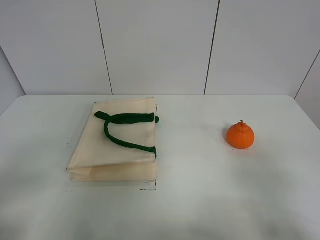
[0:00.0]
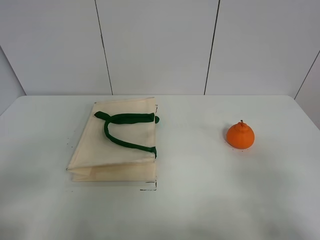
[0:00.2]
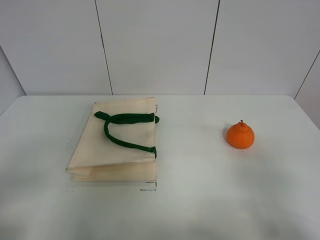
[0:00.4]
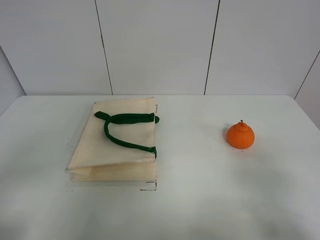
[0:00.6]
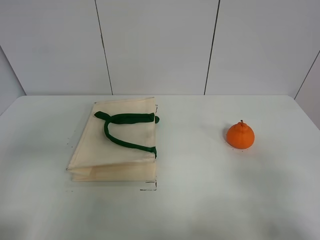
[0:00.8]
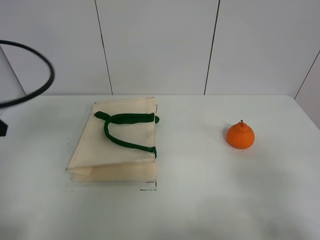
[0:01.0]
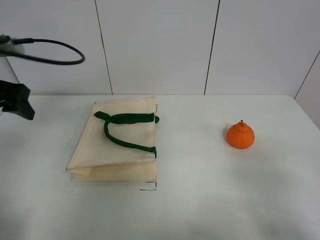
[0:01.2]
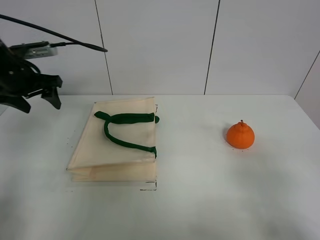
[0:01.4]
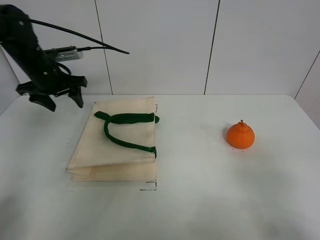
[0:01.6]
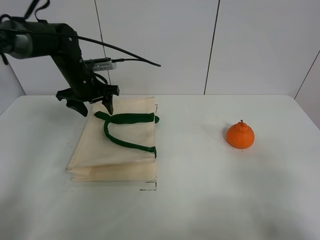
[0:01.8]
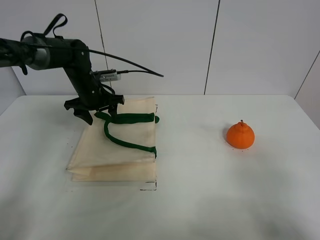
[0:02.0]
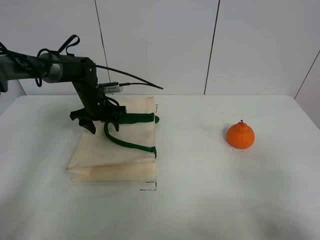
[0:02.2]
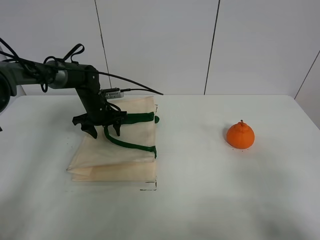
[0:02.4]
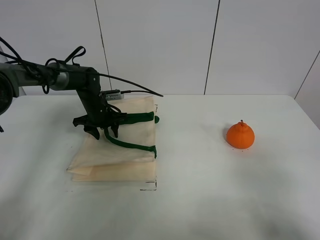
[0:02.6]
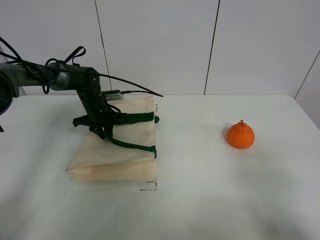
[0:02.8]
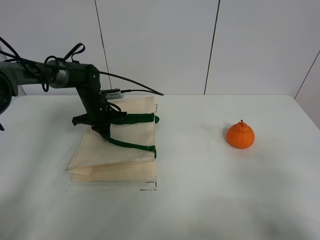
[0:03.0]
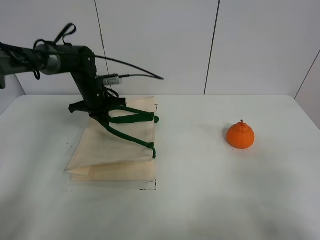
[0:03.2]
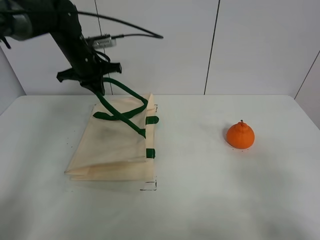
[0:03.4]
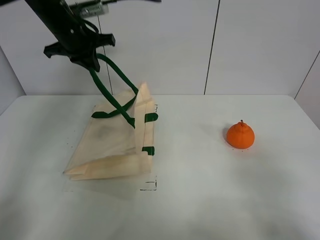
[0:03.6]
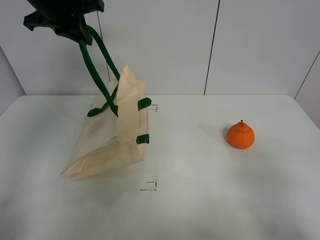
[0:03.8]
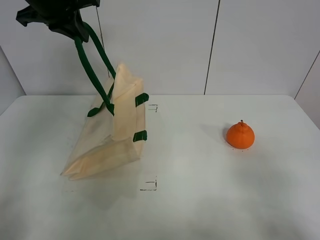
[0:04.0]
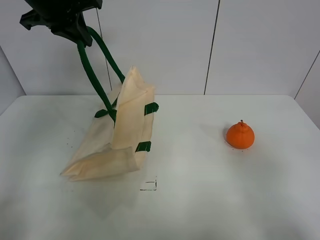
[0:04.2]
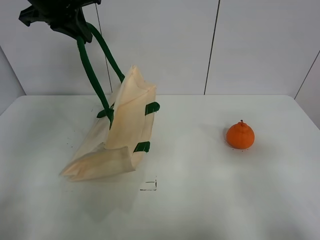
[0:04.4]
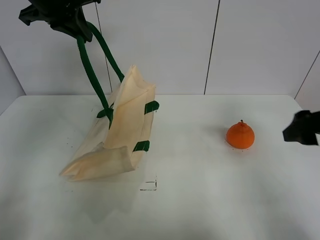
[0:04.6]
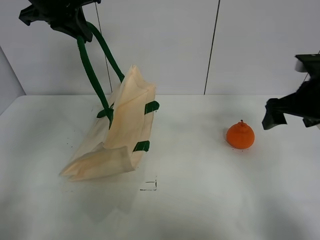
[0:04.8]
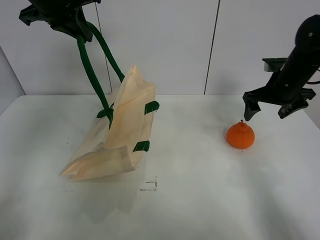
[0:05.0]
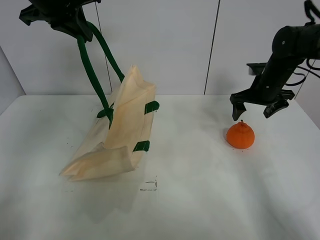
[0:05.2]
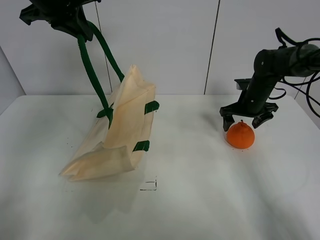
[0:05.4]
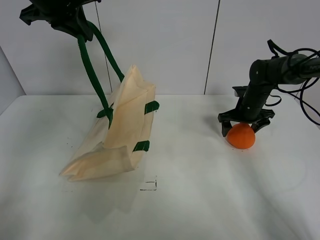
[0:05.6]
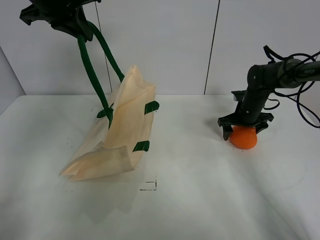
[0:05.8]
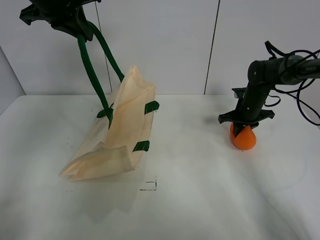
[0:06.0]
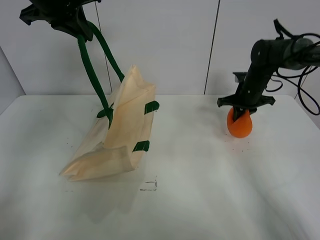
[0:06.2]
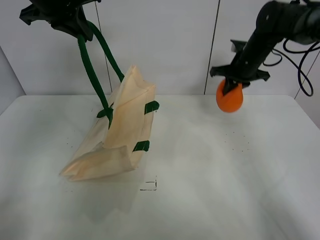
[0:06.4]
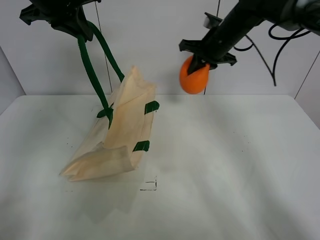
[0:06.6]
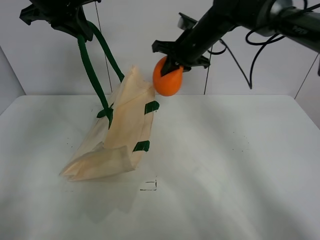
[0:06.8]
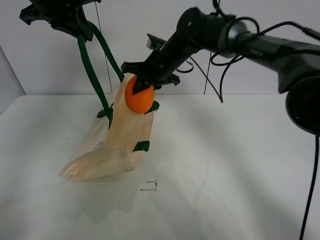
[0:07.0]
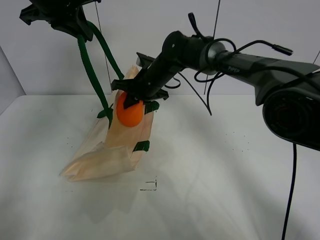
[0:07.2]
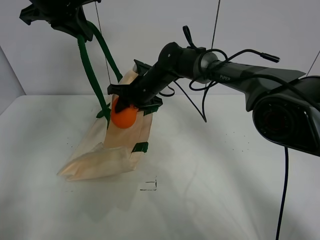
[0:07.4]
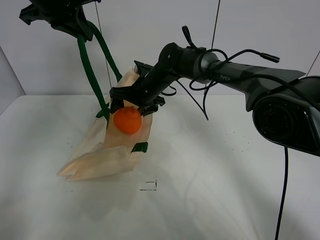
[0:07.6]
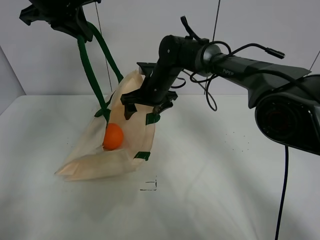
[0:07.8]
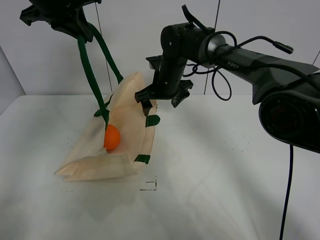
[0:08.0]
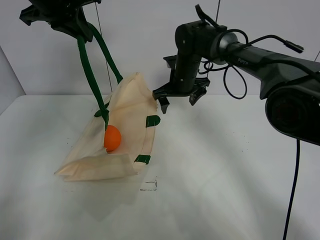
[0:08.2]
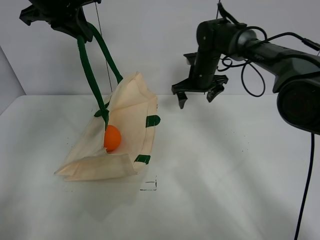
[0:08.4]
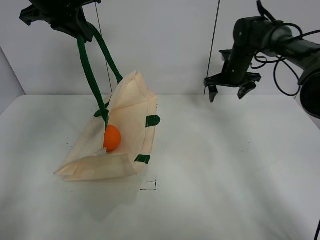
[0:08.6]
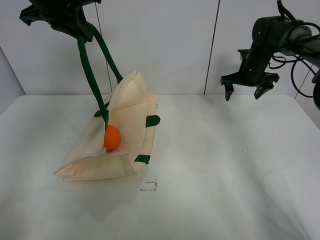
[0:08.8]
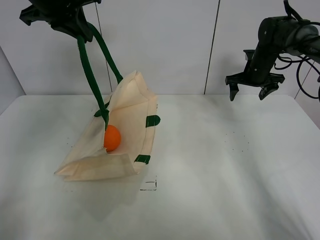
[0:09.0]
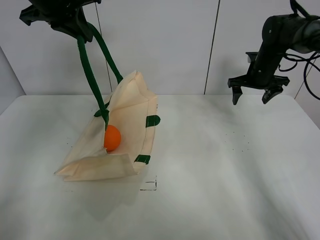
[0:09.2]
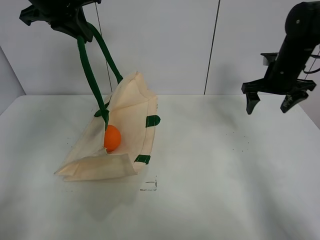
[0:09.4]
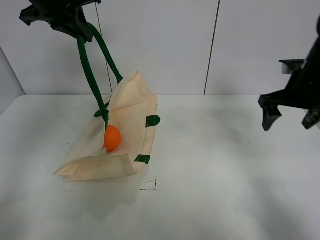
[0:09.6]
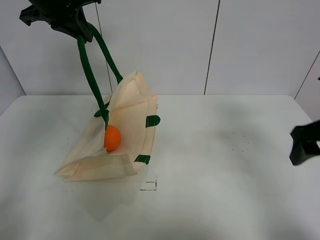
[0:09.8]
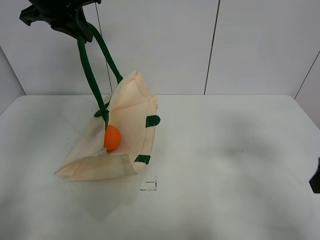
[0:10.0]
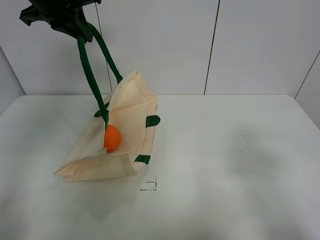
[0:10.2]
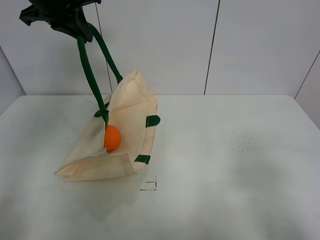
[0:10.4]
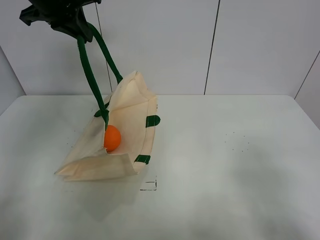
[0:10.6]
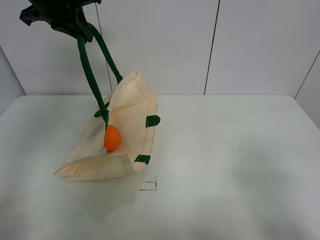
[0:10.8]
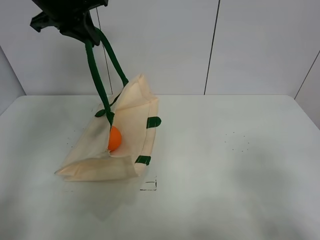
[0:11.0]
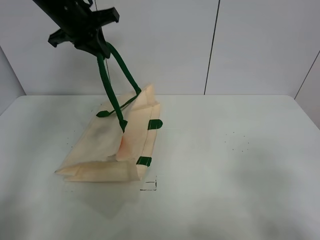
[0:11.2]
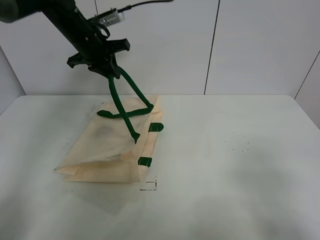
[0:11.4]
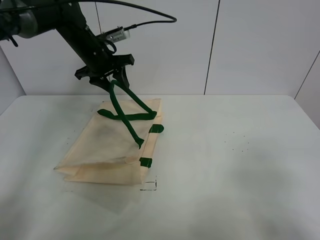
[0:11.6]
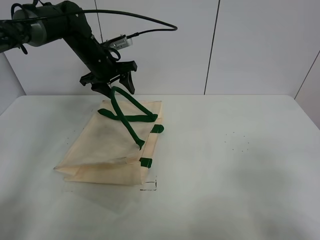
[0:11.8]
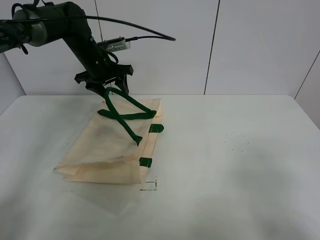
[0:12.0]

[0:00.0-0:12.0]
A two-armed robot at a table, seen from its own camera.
Task of the whole recording: open the white linen bag and put the orange in the bag.
Step, 0.0 to 4.0 s: Lift the handbag with left gripper.
Step, 4.2 to 5.4 s: Grasp the orange with right gripper.
Step, 5.6 to 7.2 s: Place the orange in the handbag with right gripper.
Step, 7.4 to 11.8 s: Put down the handbag with left gripper.
0.0 to 1.6 s: The left gripper moves forward, about 40 cm.
1.6 to 3.0 s: The left gripper goes about 15 cm downward and to the right, and closes up.
3.0 to 4.4 s: The left gripper moves upward, approximately 30 cm. The right gripper is displaced forward by some 10 cm.
4.4 to 6.0 s: The right gripper heads forward and downward, covering roughly 40 cm, and closes up.
6.0 to 7.6 s: The right gripper goes some 25 cm to the left, and opens.
7.6 to 9.0 s: The right gripper travels to the right by roughly 30 cm.
9.0 to 10.4 s: The right gripper goes approximately 50 cm backward.
10.4 to 12.0 s: The left gripper shifts roughly 20 cm downward and forward, and opens up.

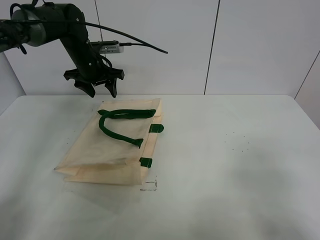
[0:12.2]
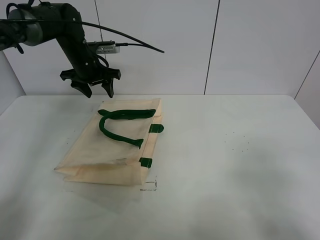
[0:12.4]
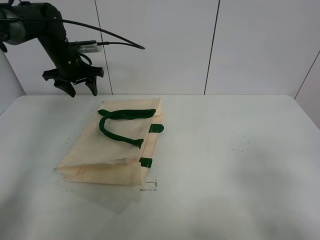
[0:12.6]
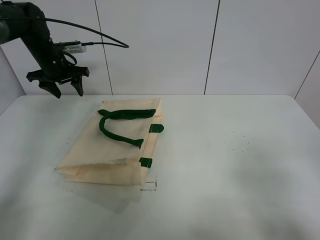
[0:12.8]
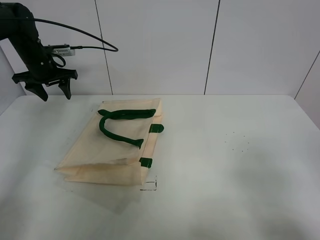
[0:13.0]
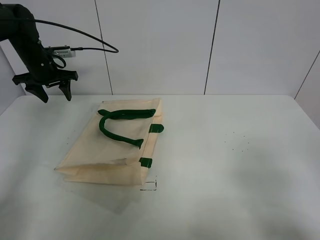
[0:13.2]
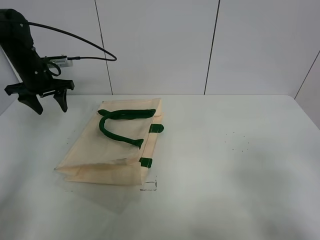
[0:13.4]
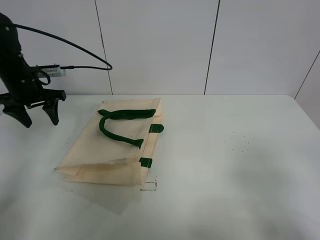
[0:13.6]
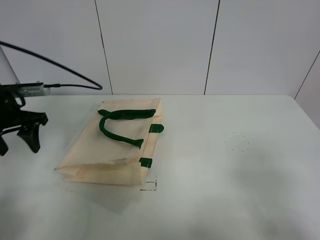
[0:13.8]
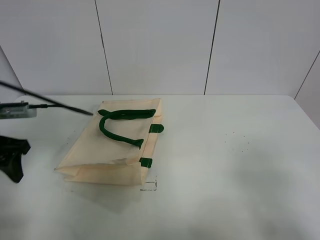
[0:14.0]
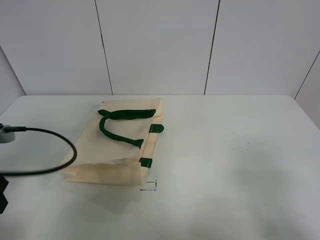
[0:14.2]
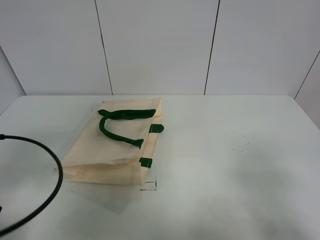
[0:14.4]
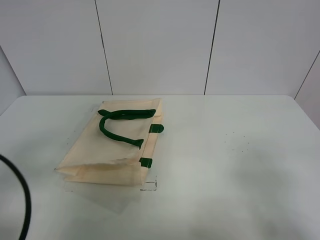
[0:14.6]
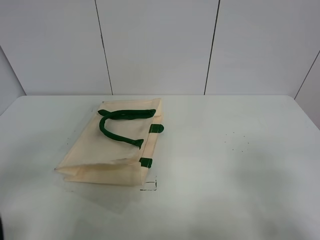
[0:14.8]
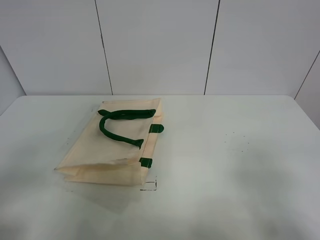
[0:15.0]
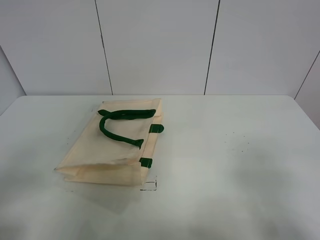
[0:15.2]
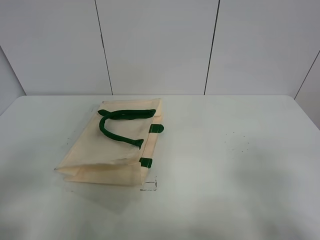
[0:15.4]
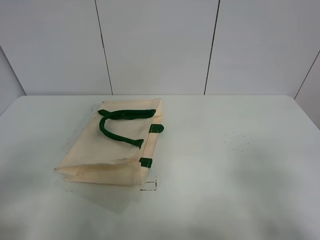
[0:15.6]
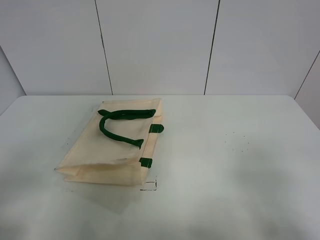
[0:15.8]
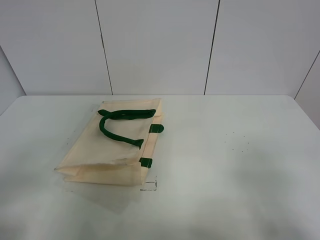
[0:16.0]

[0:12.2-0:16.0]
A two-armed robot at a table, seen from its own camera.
Task of the whole recording: open the white linen bag and put the orange in the bag.
12.2 to 13.4 s: The left gripper moves to the left, some 10 cm.
13.4 to 14.8 s: The left gripper goes roughly 40 cm backward.

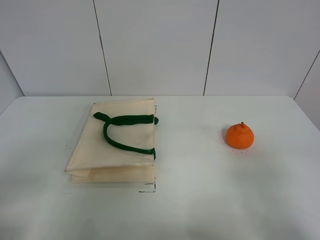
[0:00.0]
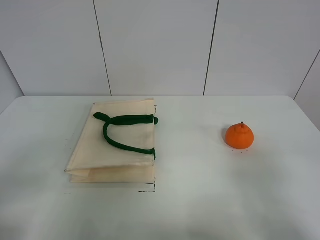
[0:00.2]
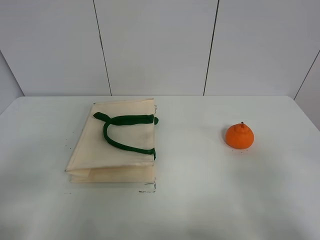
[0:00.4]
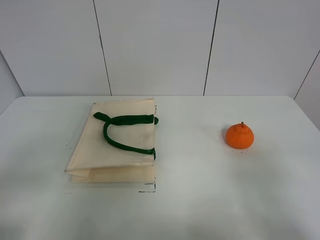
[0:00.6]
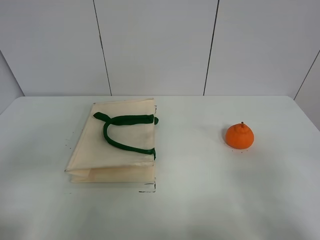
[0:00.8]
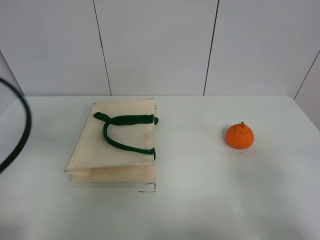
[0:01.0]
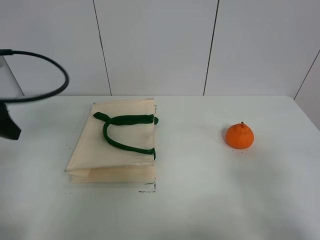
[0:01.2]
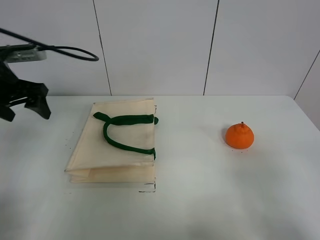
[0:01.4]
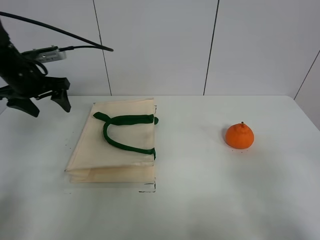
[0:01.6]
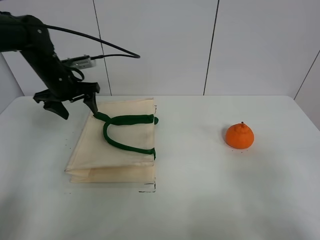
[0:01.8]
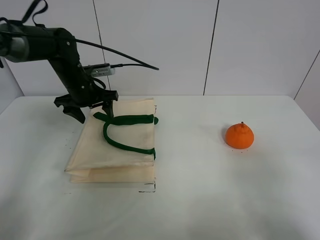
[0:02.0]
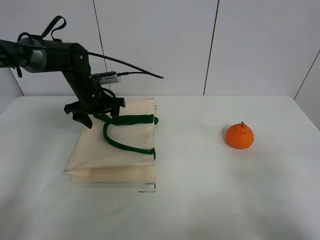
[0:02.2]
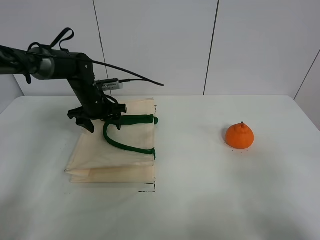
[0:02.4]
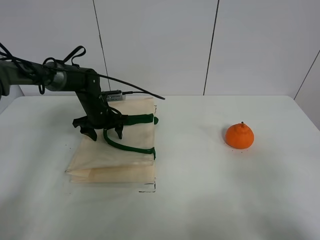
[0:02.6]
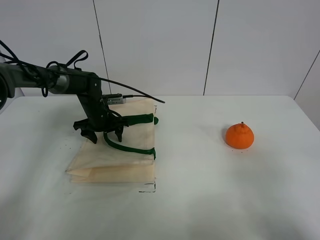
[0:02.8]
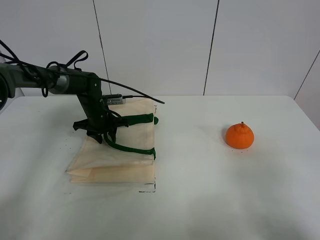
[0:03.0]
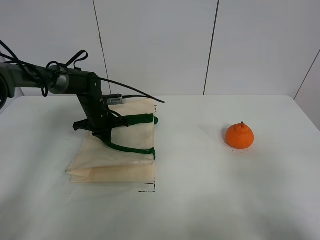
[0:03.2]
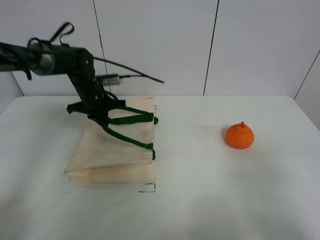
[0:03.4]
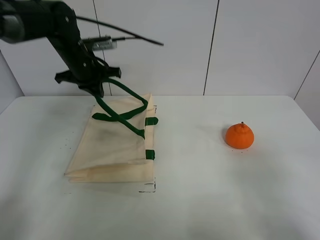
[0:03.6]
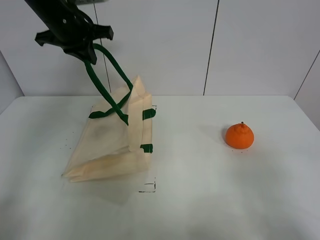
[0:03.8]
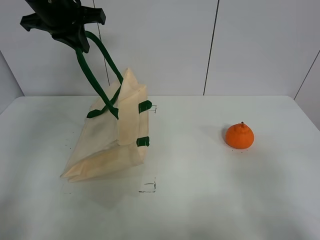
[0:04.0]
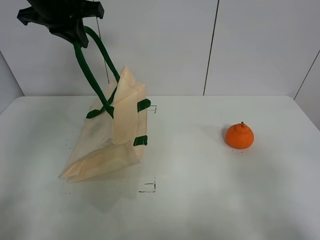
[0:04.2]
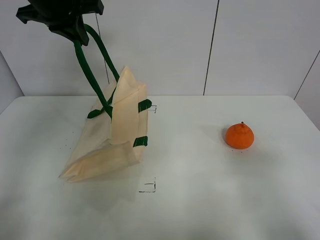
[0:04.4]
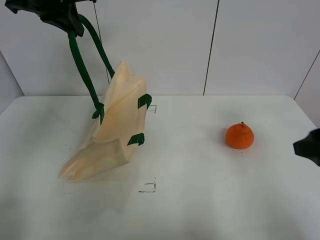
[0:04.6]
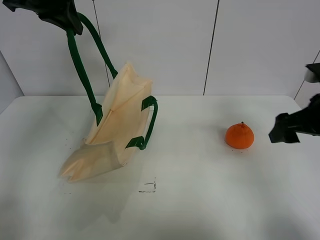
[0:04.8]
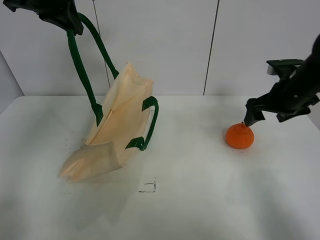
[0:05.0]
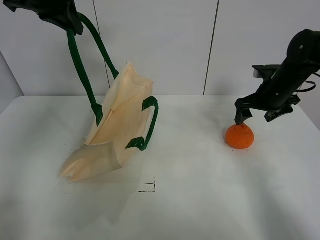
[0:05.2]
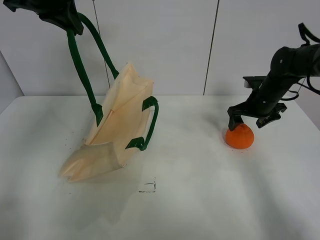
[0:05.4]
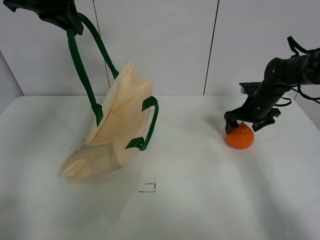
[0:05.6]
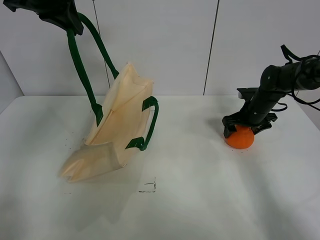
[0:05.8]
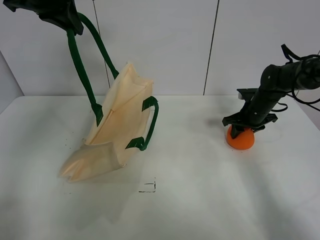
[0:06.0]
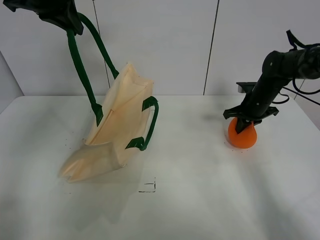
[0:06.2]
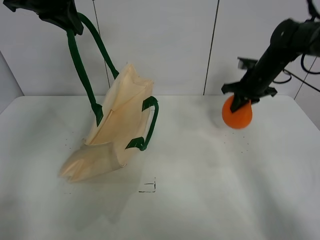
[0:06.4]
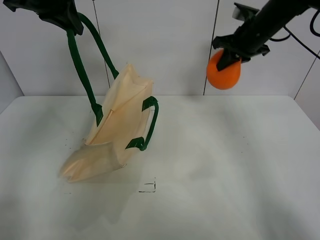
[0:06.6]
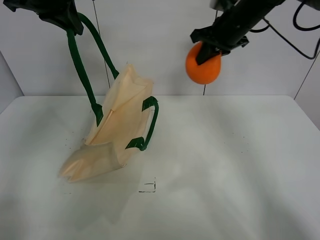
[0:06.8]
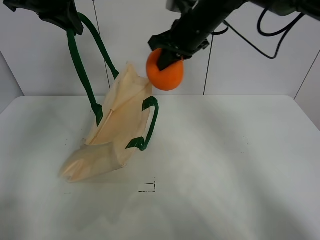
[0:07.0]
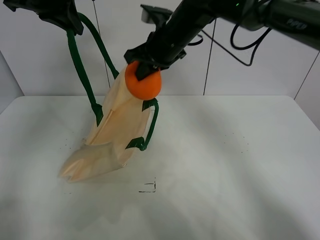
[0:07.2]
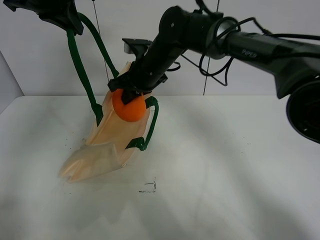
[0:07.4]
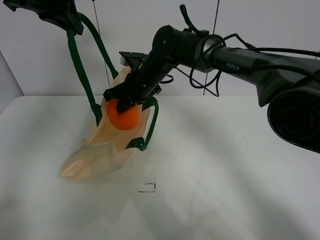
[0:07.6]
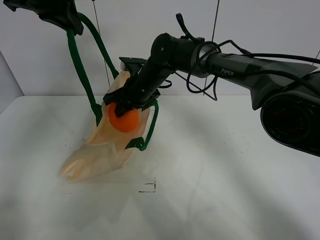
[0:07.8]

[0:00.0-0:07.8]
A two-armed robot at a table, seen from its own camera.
Task of the whole recording: open the white linen bag and put the orange in the bag.
Step, 0.0 to 4.0 s: Lift the handbag with left gripper.
Step, 4.2 to 6.0 s: Grasp the orange with right gripper.
0.0 to 1.6 s: The left gripper heads forward, covering some 40 cm.
1.6 to 3.2 s: The left gripper goes roughly 20 cm downward and to the right, and closes up.
3.2 to 4.6 s: The left gripper heads upward, covering some 35 cm. The right gripper is displaced forward by roughly 20 cm.
4.6 to 6.2 s: The right gripper heads forward and downward, covering about 30 cm, and closes up.
6.2 to 7.8 s: The right gripper shifts roughly 30 cm to the left, and opens.
